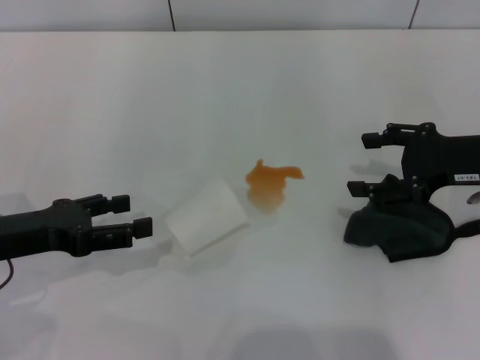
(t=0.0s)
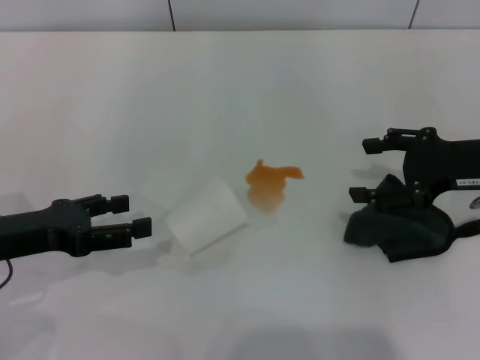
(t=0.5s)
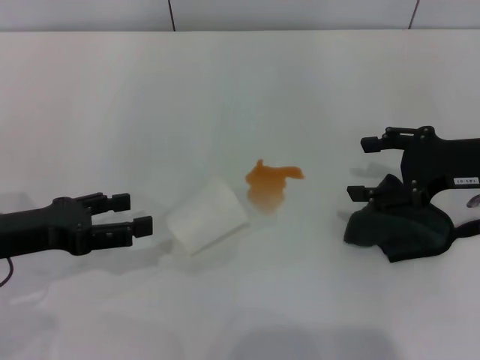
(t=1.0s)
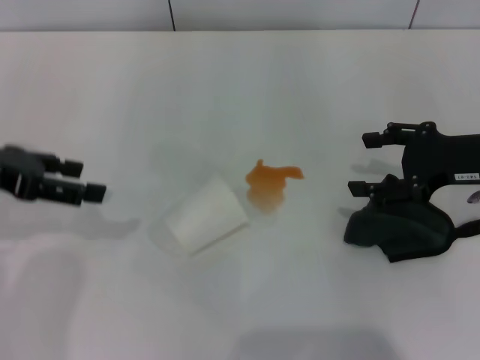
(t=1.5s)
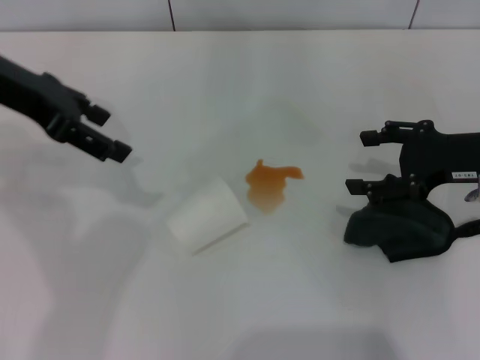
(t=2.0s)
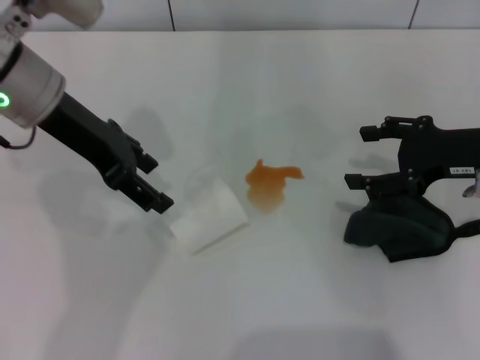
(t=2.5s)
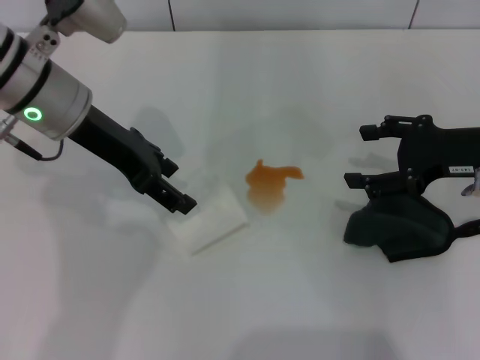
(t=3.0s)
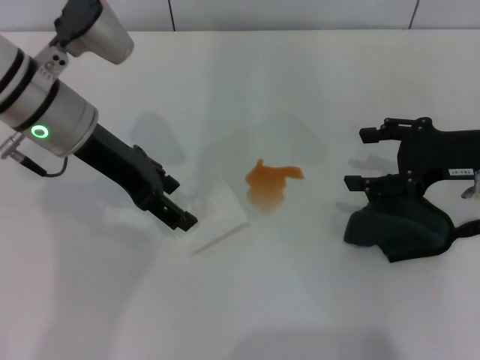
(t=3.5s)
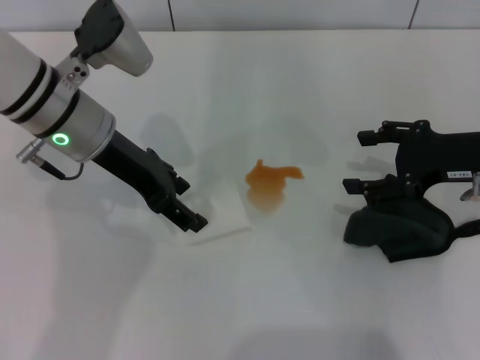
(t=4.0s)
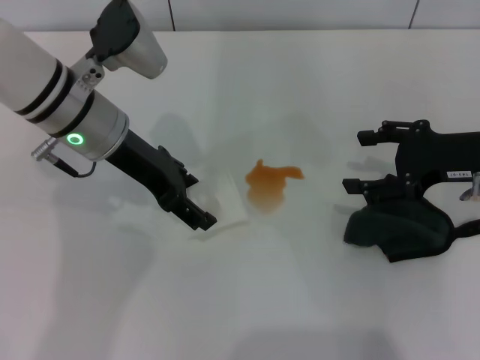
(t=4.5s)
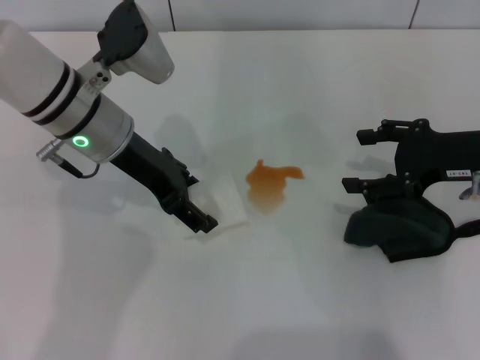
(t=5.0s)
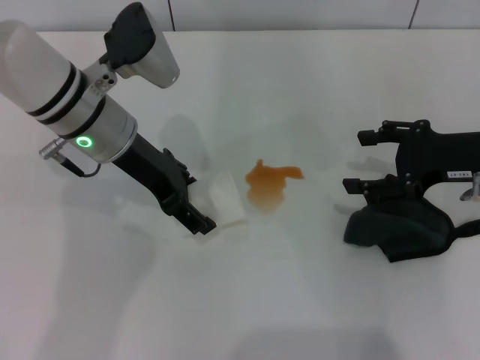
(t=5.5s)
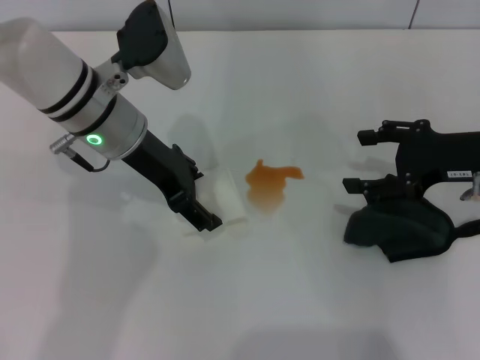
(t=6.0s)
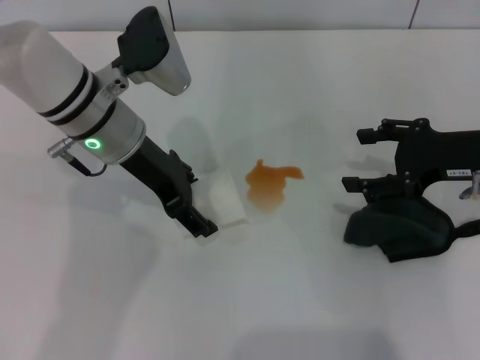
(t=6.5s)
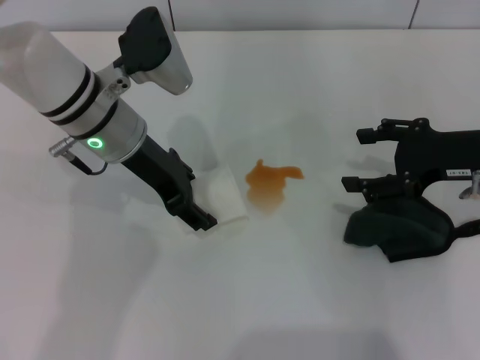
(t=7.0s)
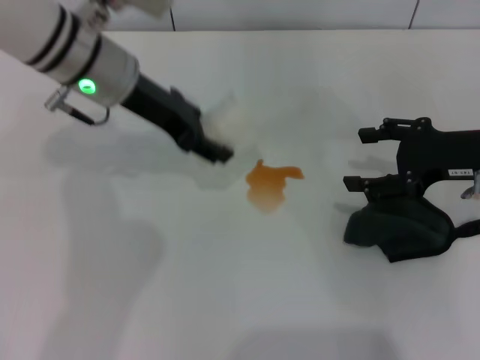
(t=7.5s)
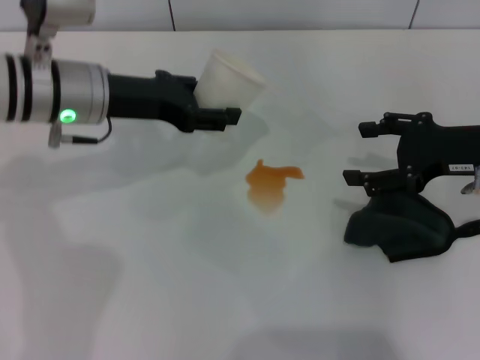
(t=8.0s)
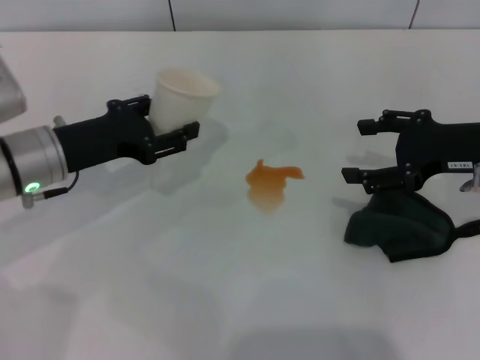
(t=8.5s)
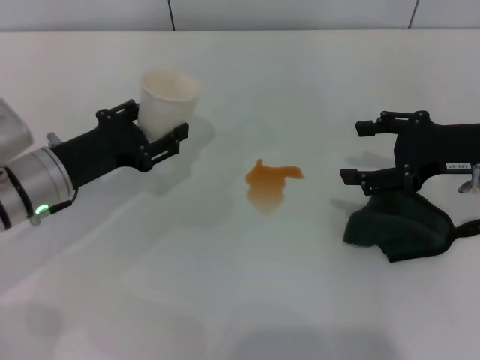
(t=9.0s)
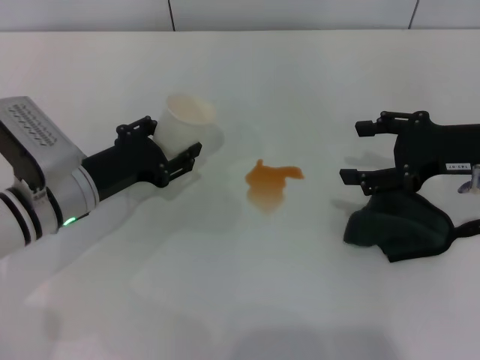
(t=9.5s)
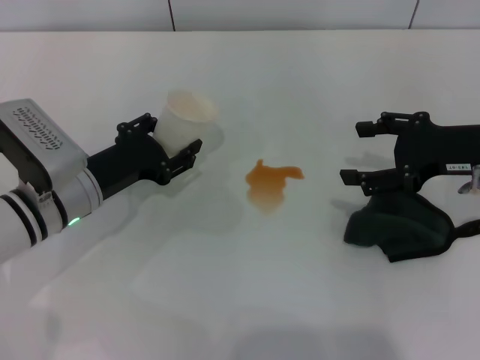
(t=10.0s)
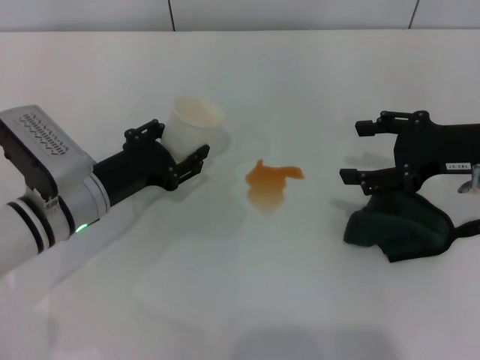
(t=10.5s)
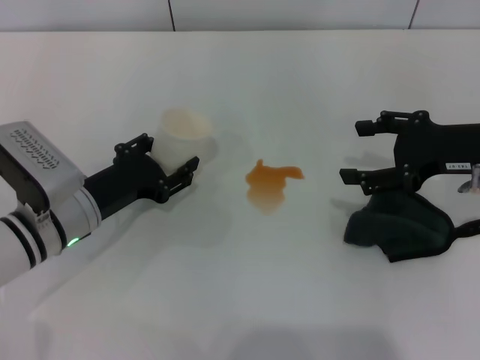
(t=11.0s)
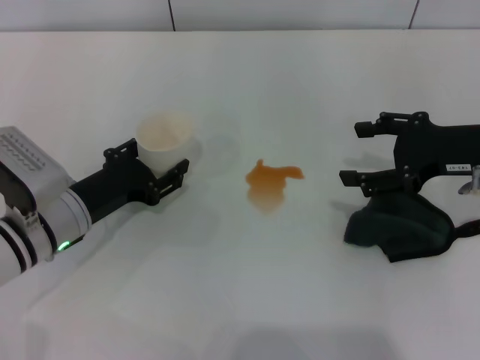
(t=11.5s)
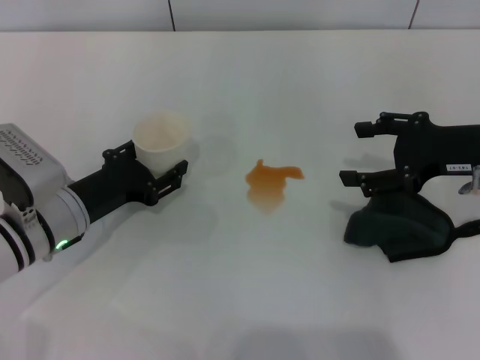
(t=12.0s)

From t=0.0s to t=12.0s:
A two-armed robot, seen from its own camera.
Step, from t=0.0s to t=6.5s: Grasp the paper cup with the left gripper.
From t=0.0s to t=2.0s: The left gripper shifts about 20 cm upward and forward.
From t=2.0s to t=4.0s: The left gripper moves downward and to the right, some 10 cm.
From t=4.0s to t=6.0s: The grippers stay close to where they were, moving slightly.
From t=6.0s to t=8.0s: The left gripper closes up.
From t=8.0s to t=10.0s: The left gripper heads downward and backward, covering about 10 cm.
From t=10.0s to t=12.0s: The grippers stay close to where they were, moving slightly.

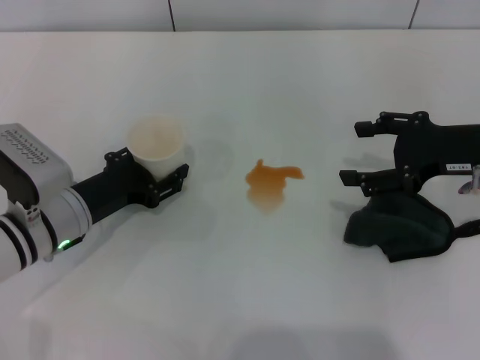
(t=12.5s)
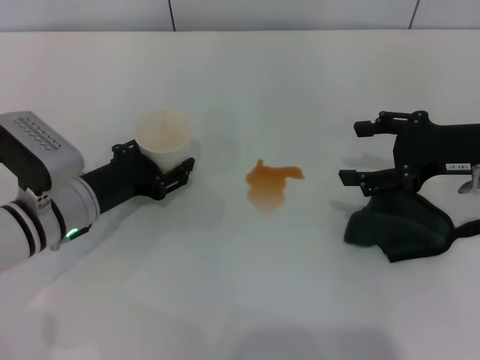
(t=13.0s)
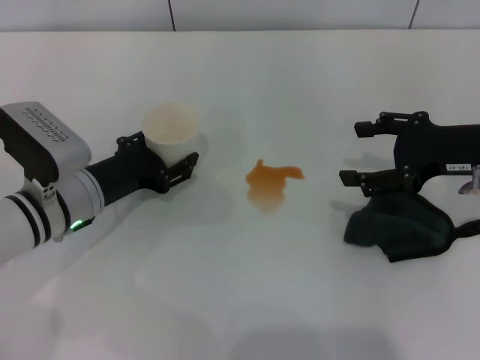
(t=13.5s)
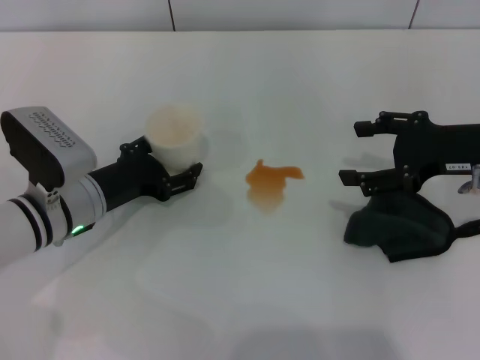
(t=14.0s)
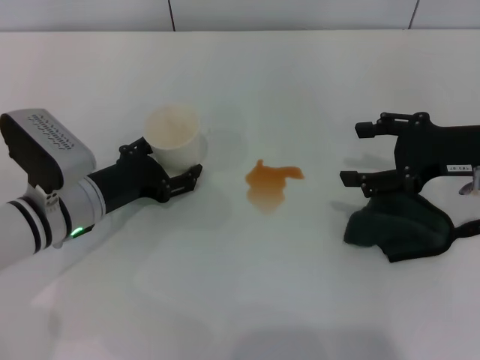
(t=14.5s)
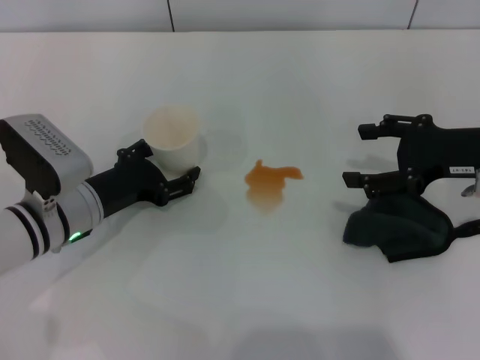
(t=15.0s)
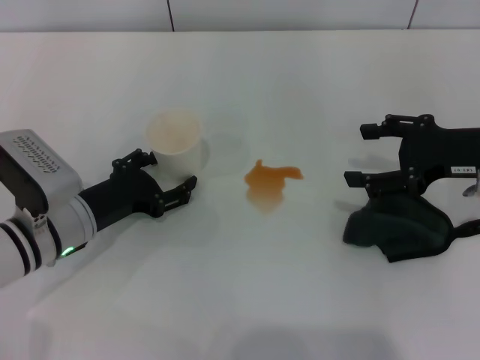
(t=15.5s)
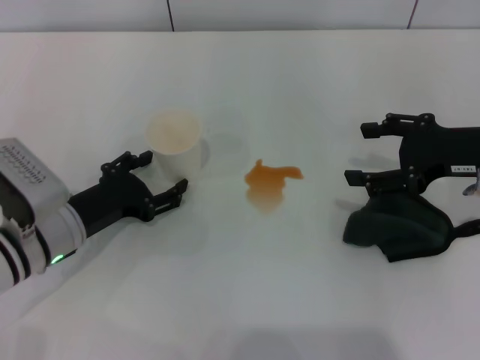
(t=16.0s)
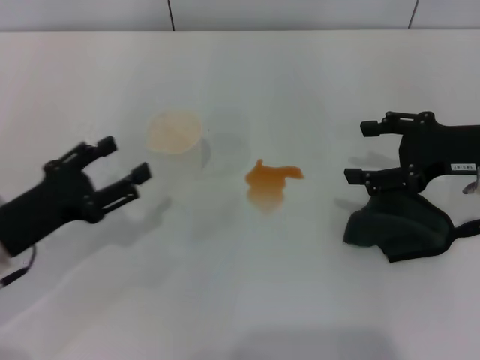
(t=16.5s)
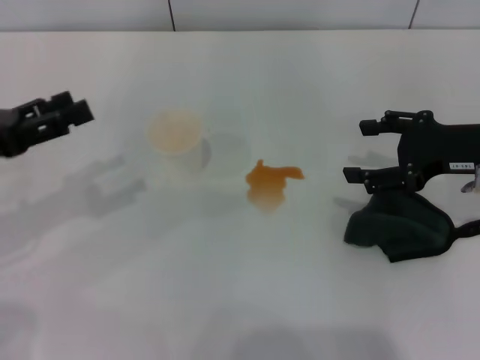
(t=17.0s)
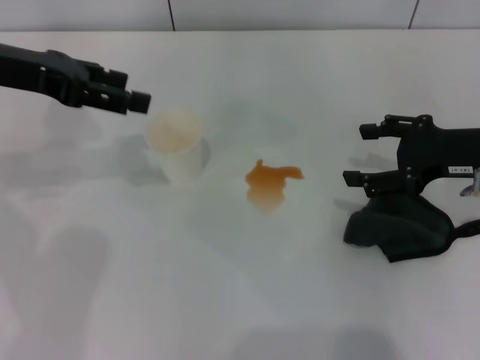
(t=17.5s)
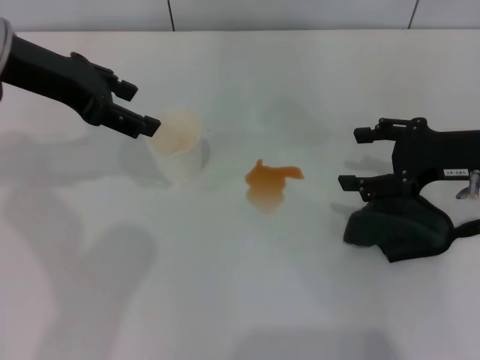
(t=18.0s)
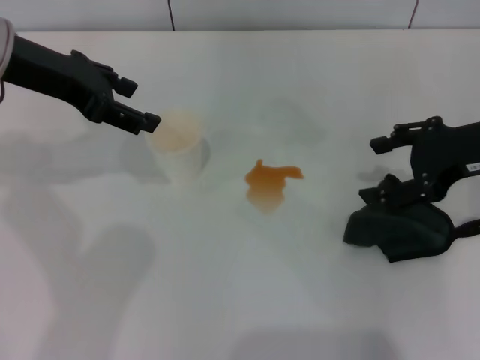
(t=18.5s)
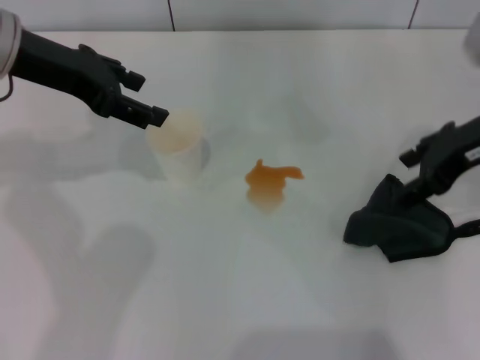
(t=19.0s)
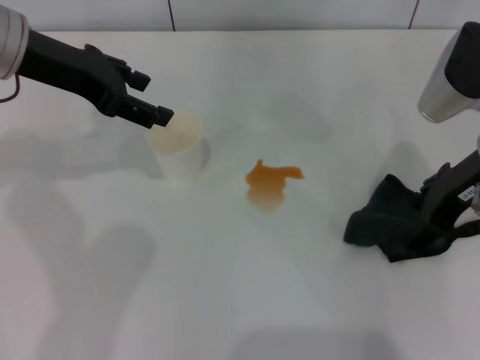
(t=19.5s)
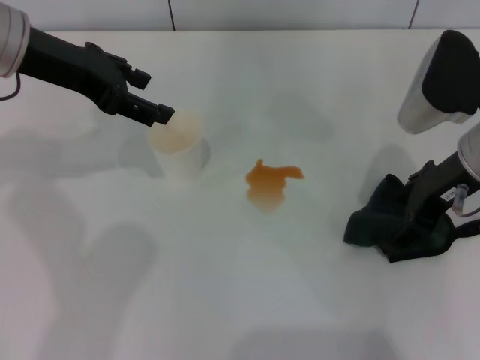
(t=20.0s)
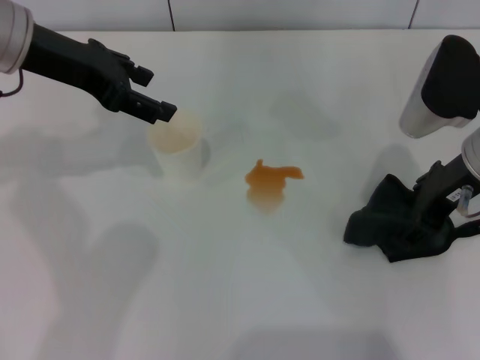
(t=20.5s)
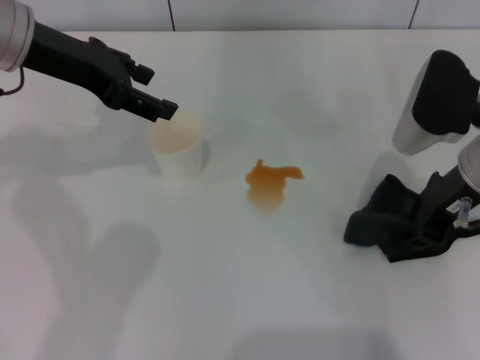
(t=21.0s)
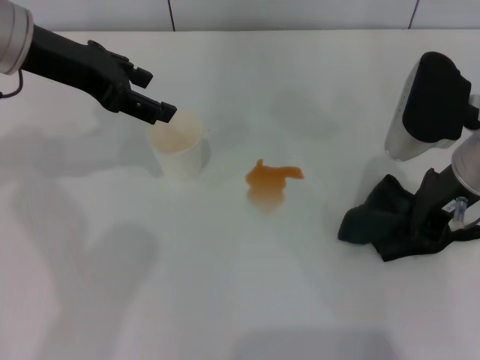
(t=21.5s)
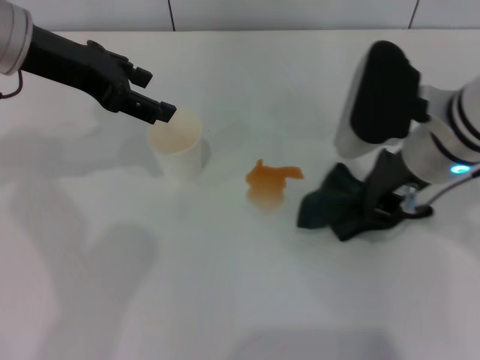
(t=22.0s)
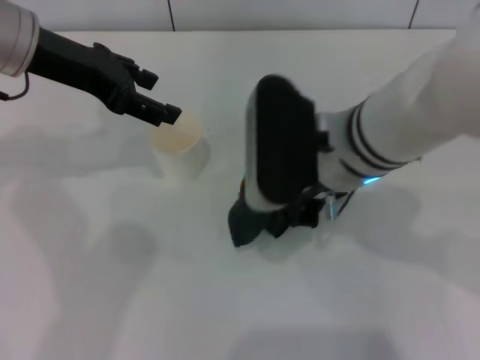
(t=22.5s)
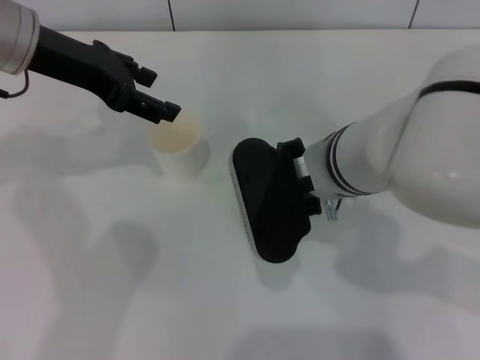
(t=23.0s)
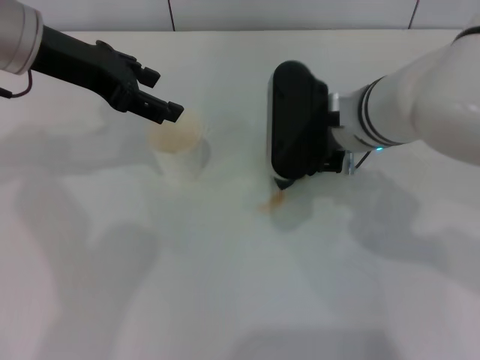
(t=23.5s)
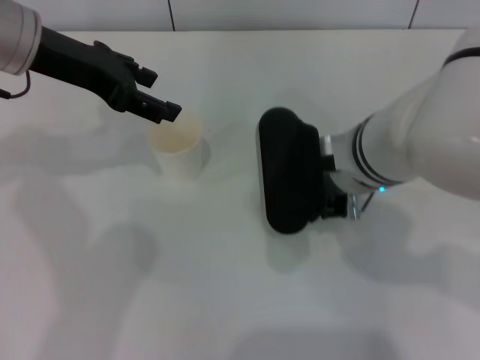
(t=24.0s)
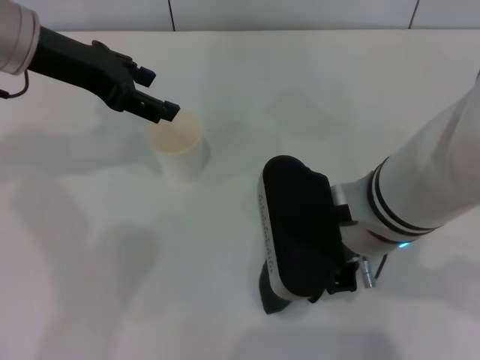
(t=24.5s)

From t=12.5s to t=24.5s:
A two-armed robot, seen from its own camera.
Step, from t=12.5s to t=16.0s: Stand the paper cup upright with the left gripper.
Step, from t=16.5s to t=21.0s: Grasp the rag with the right gripper.
From t=12.5s to t=14.5s: The left gripper opens its fingers.
From t=14.5s to t=16.5s: The left gripper goes about 10 cm backward and to the left.
From t=16.5s to t=18.5s: The left gripper shifts approximately 20 cm upward and forward.
From t=18.5s to t=20.5s: The right gripper shifts some 5 cm to the left.
From t=20.5s to t=22.5s: The right gripper heads to the left, covering about 15 cm, and closes its fingers.
From t=22.5s to t=24.5s: The right gripper is displaced backward by approximately 5 cm.

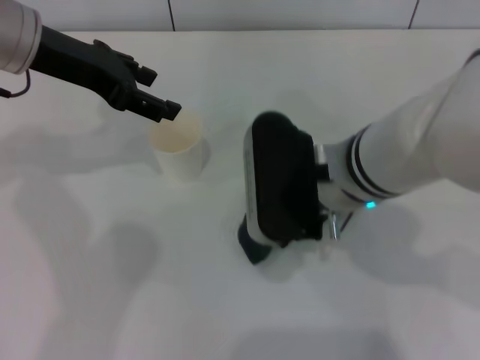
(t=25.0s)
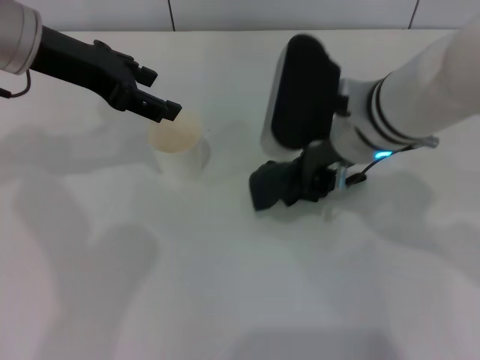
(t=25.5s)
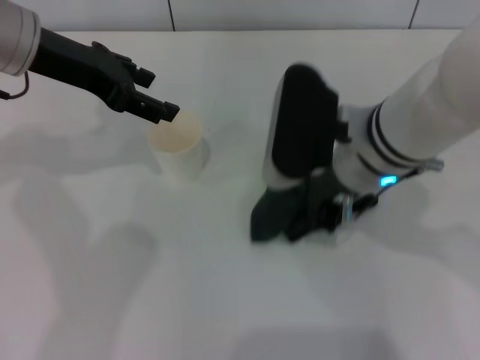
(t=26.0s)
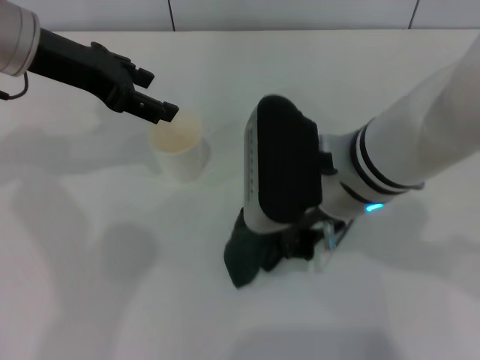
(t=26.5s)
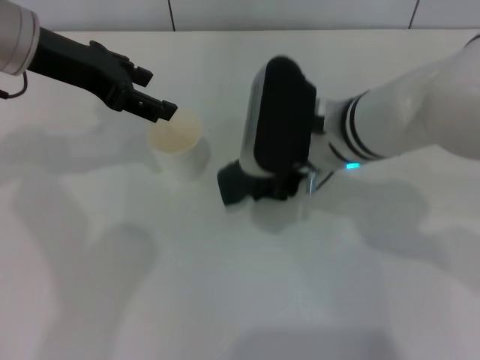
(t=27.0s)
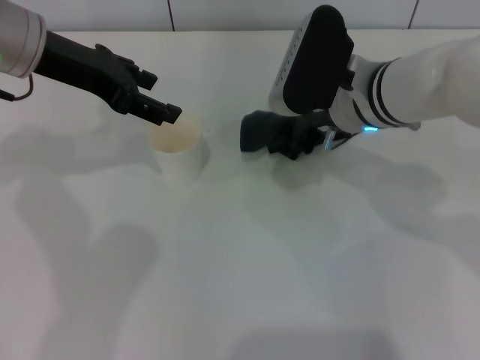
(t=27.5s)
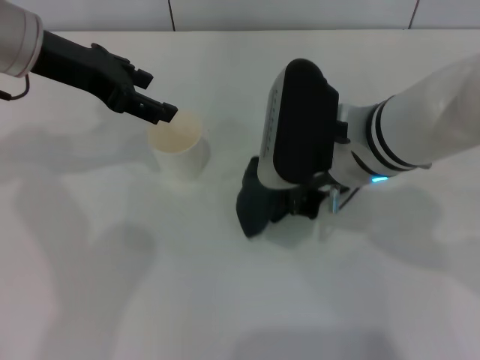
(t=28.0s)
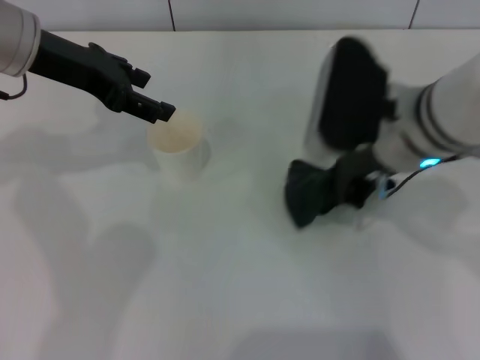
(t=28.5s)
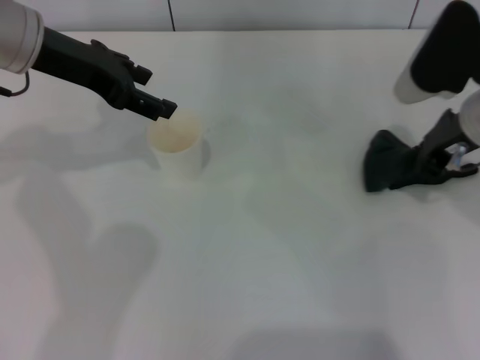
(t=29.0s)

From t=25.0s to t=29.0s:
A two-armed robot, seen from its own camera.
Step, from t=25.0s to t=28.0s: Wipe the stains off the table with the right gripper.
From t=25.0s to t=27.0s: The right gripper moves forward and backward over roughly 5 cm, changing direction 2 times.
From t=27.0s to t=29.0s: The right gripper heads to the right, covering some 15 cm.
